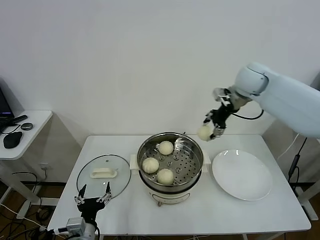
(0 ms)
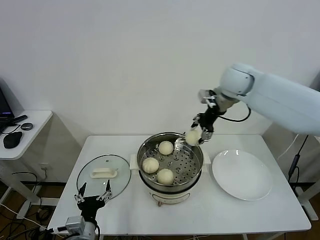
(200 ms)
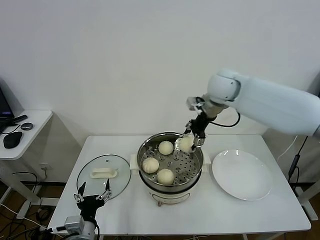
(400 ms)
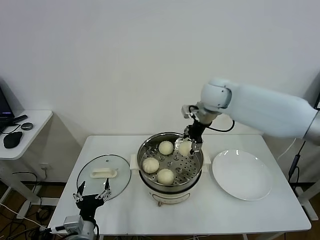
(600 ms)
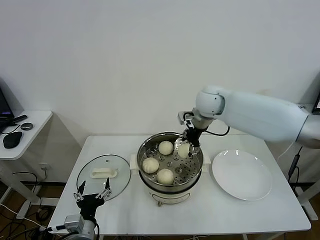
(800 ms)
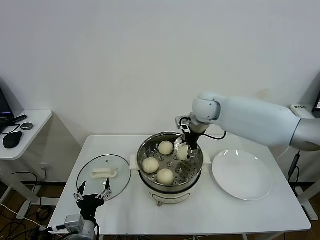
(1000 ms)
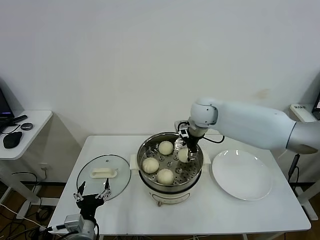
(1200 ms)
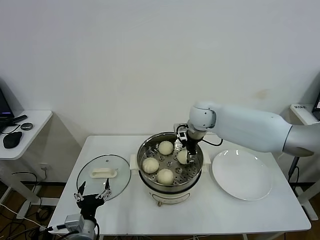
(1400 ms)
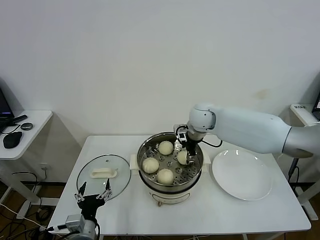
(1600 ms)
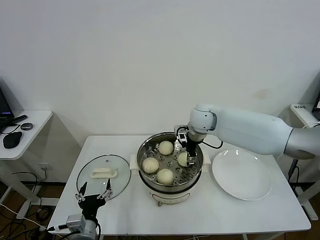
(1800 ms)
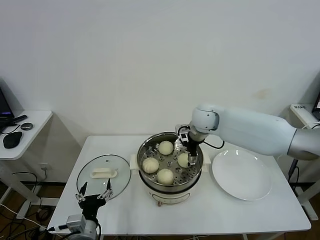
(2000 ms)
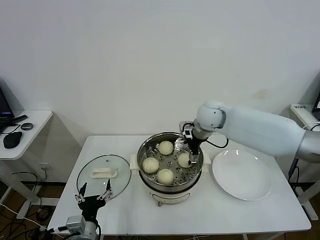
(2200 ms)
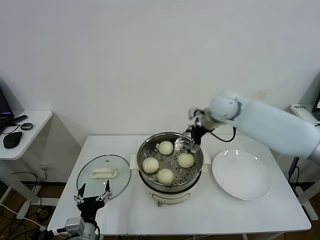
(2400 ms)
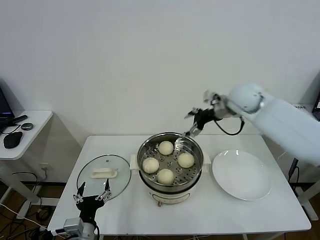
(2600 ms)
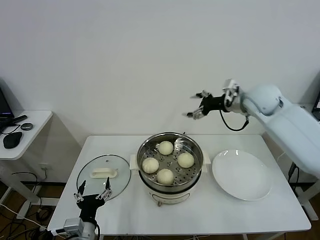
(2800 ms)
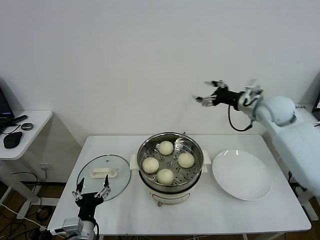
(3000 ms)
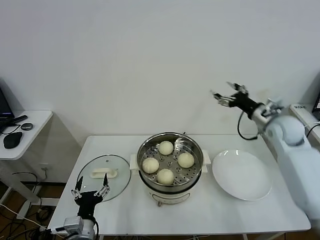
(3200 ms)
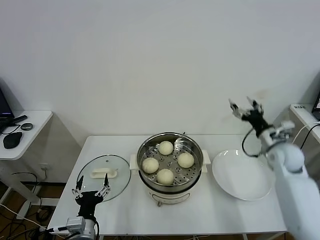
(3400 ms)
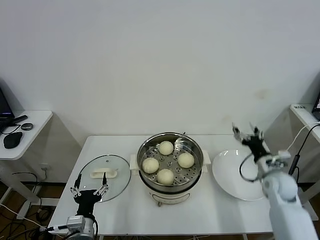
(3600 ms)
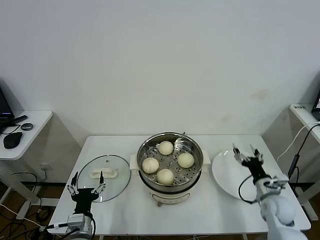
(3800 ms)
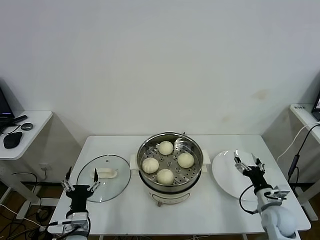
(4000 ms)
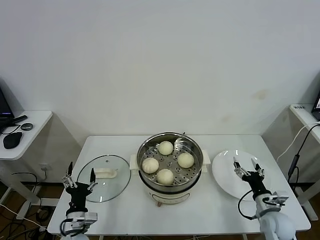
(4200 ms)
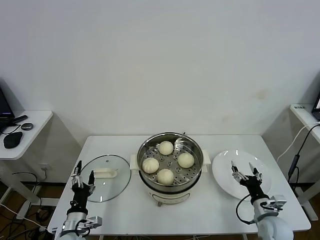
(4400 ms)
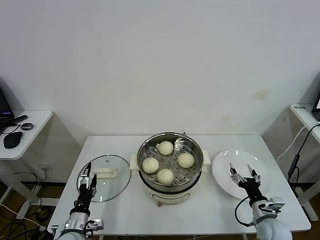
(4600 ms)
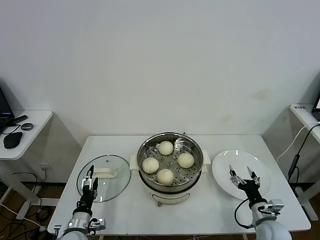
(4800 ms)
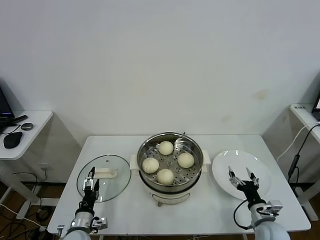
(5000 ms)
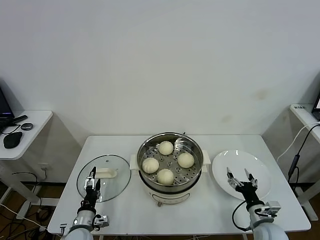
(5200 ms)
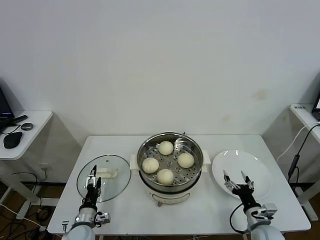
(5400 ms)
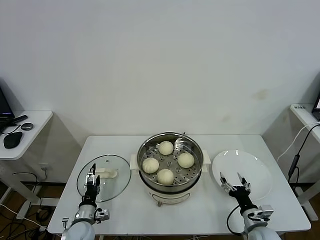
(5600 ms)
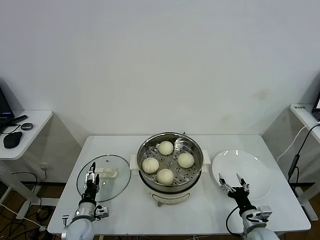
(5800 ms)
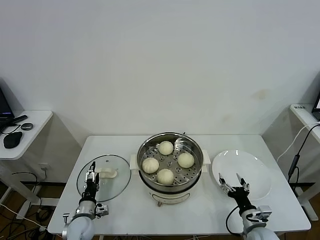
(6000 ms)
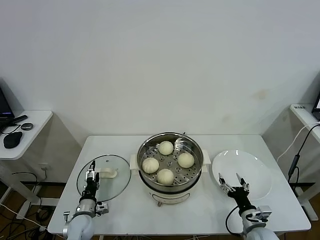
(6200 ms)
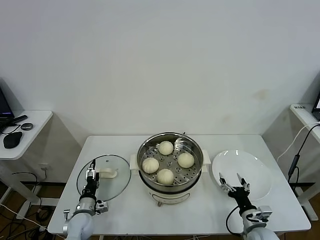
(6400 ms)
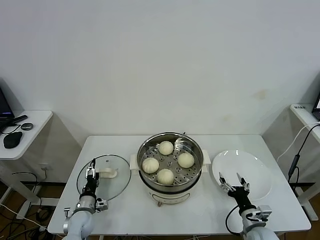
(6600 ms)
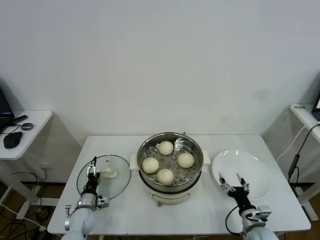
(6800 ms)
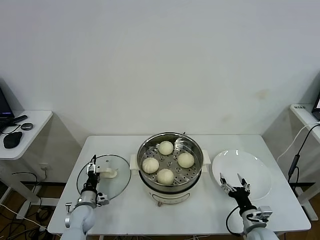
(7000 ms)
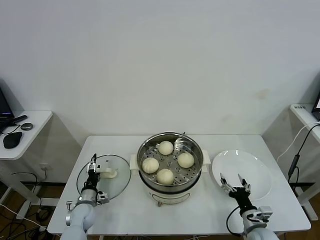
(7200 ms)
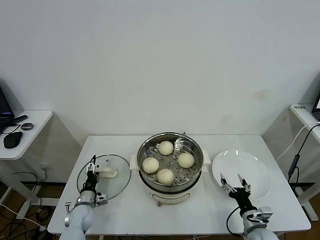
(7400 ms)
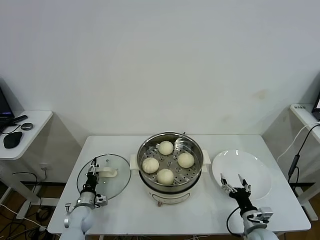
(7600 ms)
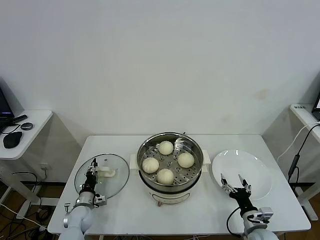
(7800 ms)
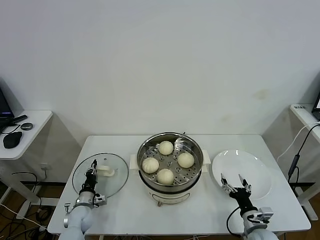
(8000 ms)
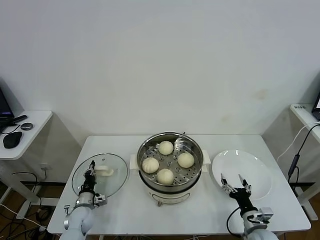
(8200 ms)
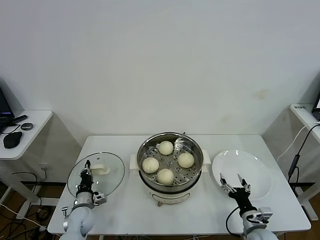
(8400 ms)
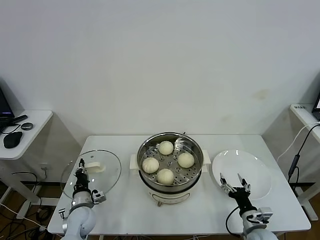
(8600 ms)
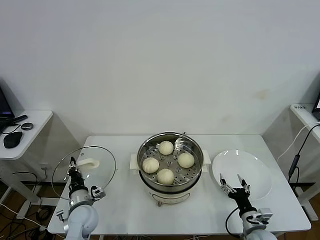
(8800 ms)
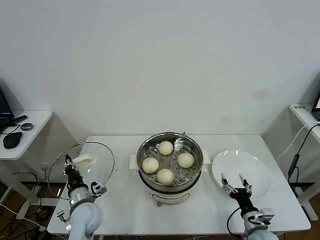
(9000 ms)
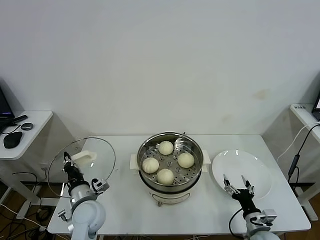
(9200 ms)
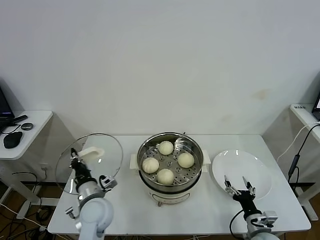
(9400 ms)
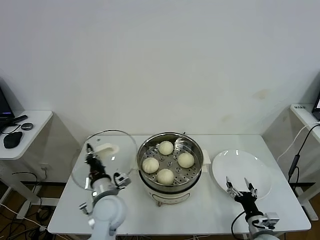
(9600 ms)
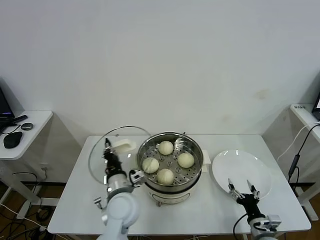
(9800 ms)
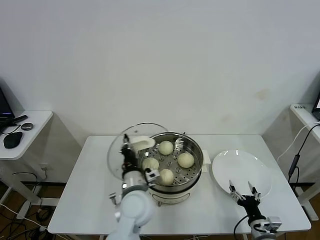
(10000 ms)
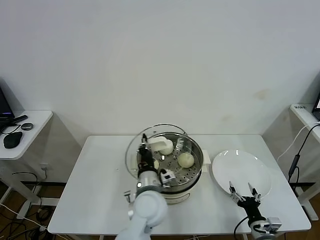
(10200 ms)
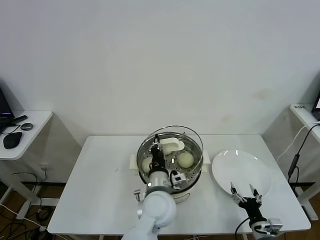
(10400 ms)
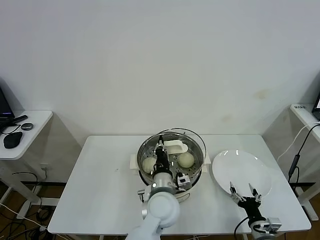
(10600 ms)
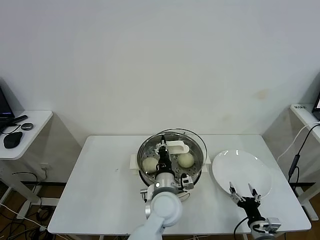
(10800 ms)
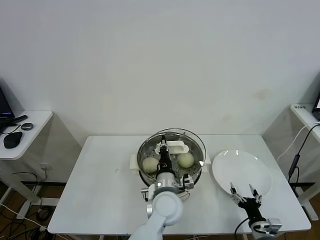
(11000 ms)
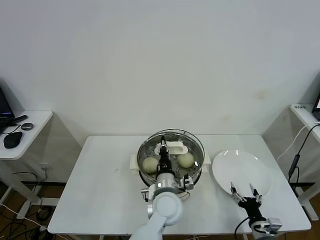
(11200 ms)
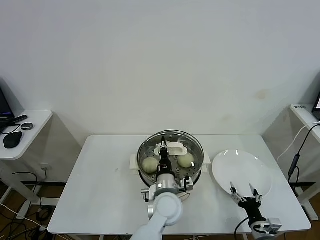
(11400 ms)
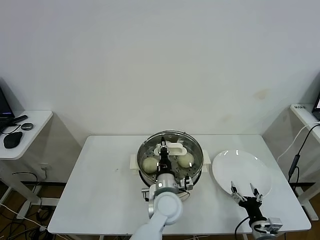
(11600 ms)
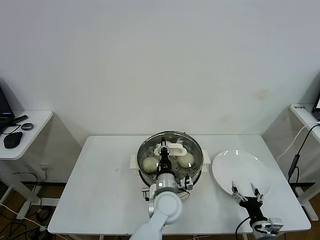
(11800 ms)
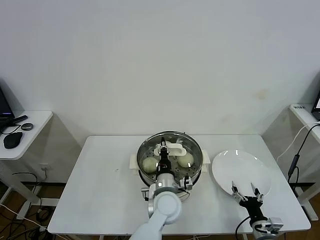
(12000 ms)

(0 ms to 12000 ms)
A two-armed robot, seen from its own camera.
Task of the whole recording: take steamed baozi put them in steamer.
Step, 0 ms - 2200 ms: Place the baozi on the steamer with right gripper.
Step, 2400 ms - 8200 ms: Grasp the pot lid with left gripper.
0 ms - 1600 ms: The right gripper goes roughly 15 cm downward and to the left.
1600 ms - 3000 ms: The right gripper goes some 20 cm to the right, and opens up.
3000 ms - 4400 ms: The left gripper shifts about 10 cm downward and to the left. Meanwhile the right gripper travels downward and backward by some 40 cm.
4400 ms - 6000 ms: The right gripper shifts by approximately 5 cm, while the left gripper moves forward and downward, some 10 cm.
6000 ms - 7600 ms: The left gripper shifts roughly 5 cm forward.
7600 ms - 9000 ms: The left gripper travels upward and to the right by roughly 15 cm, and closes its fingers.
9000 ms - 10400 ms: The left gripper heads to the right and upward, covering about 25 cm.
10400 ms - 12000 ms: The left gripper shifts by roughly 5 cm.

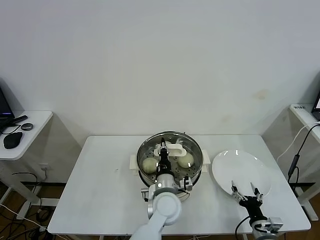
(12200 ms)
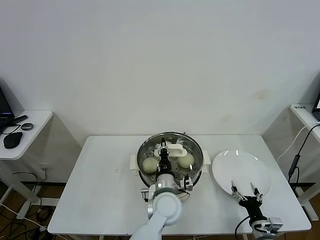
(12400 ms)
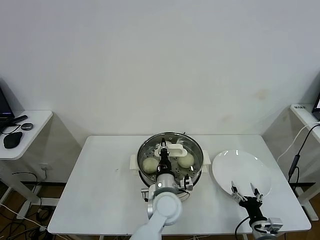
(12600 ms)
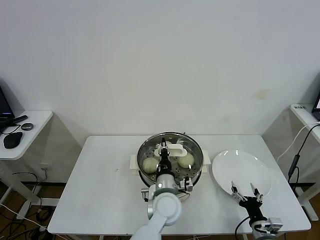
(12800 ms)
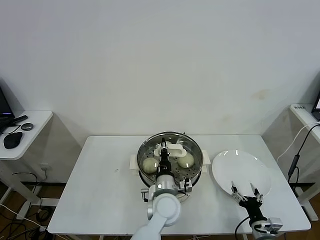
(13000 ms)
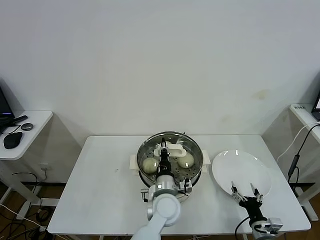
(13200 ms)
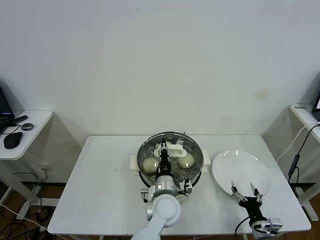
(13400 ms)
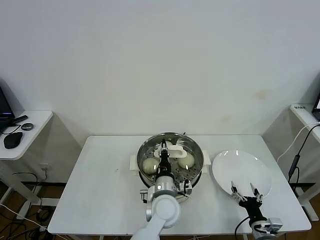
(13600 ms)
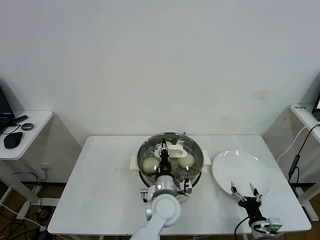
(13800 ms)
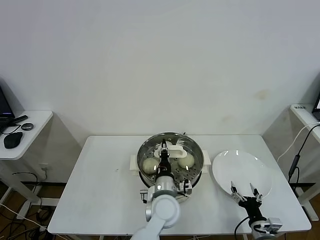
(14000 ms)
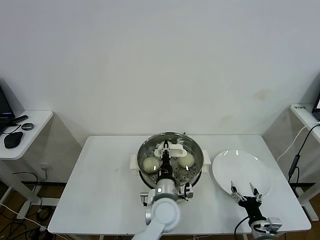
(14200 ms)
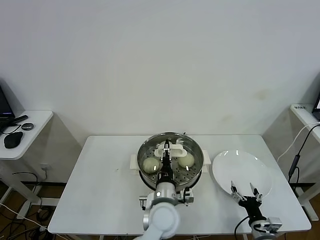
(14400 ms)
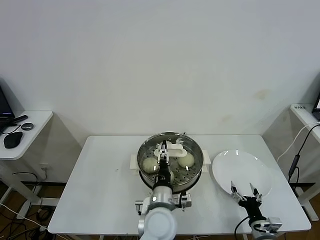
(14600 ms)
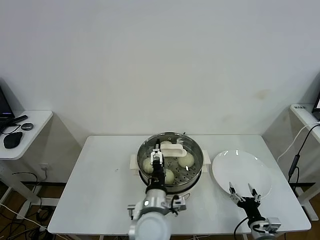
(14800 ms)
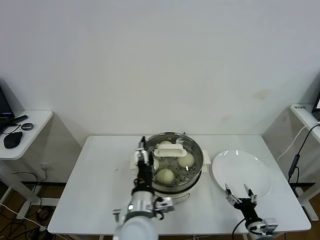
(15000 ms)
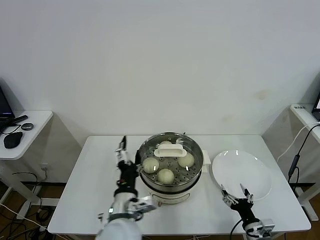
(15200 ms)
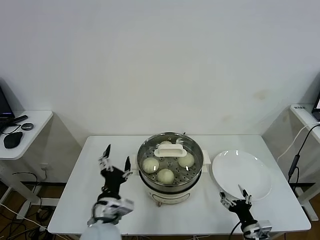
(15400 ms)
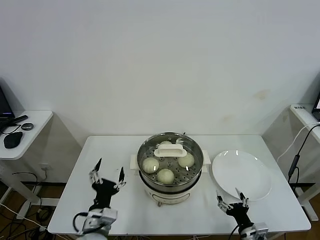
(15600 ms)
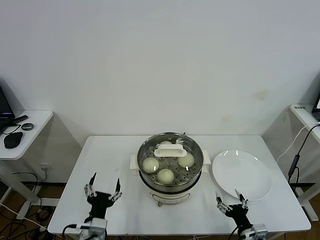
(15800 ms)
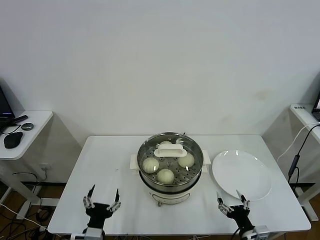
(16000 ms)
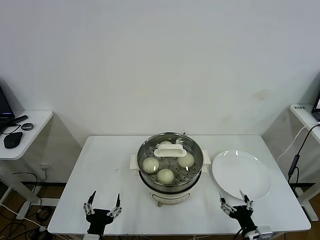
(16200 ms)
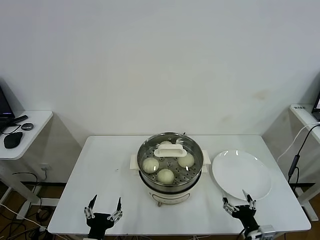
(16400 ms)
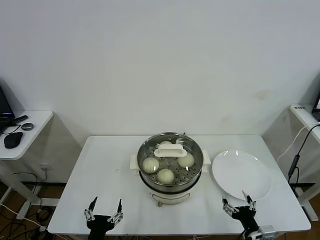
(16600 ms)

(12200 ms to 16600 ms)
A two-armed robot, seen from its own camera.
Task of the whole recording: take steamed baozi put them in steamer.
Step, 12200 ms - 14800 ms: Place the pot lid on the steamer with left gripper.
12200 ms - 13600 ms: Both grippers stay put.
13600 ms - 15200 ms: The left gripper goes some 15 cm to the left, backward and upward, and opens up.
15200 ms - 16600 ms: The right gripper ends up roughly 5 cm from where it was. Meanwhile the left gripper travels to the left, backward and downward by about 20 cm.

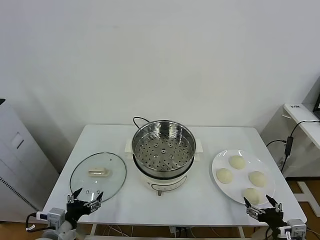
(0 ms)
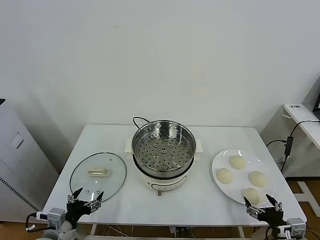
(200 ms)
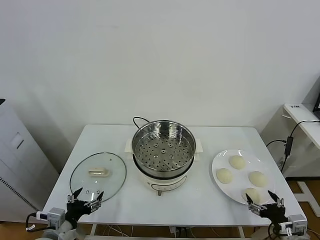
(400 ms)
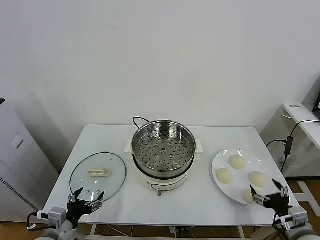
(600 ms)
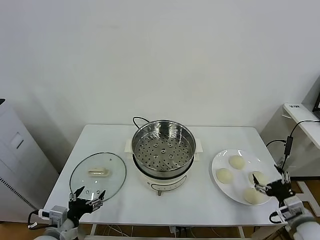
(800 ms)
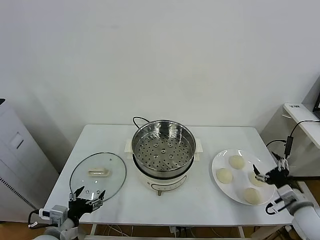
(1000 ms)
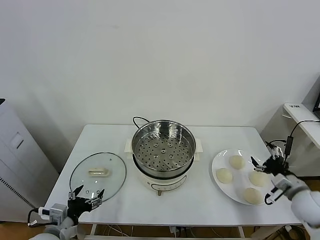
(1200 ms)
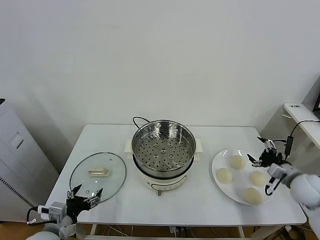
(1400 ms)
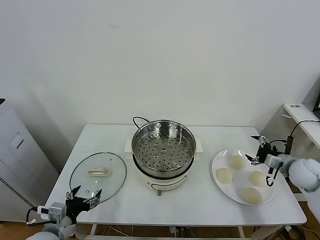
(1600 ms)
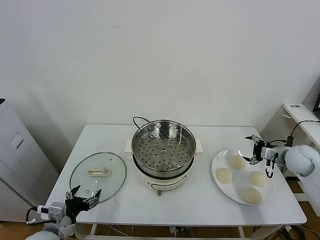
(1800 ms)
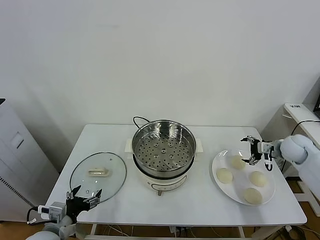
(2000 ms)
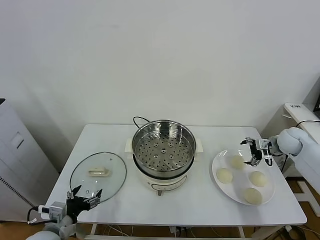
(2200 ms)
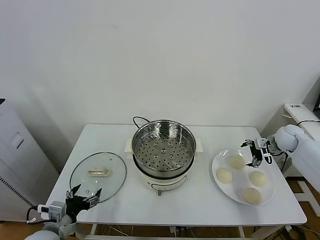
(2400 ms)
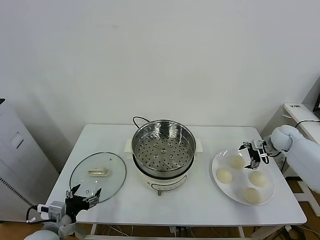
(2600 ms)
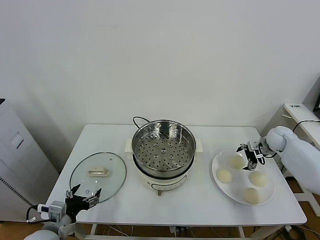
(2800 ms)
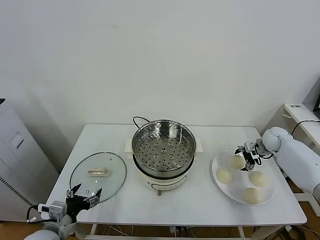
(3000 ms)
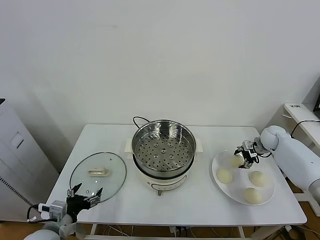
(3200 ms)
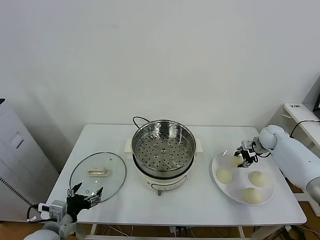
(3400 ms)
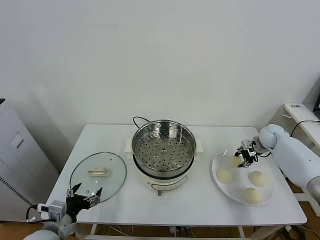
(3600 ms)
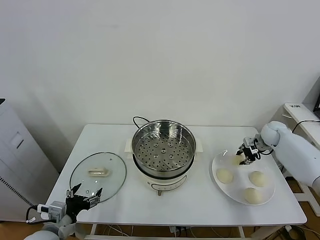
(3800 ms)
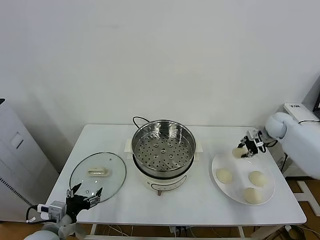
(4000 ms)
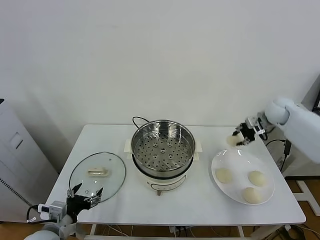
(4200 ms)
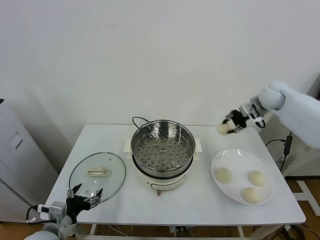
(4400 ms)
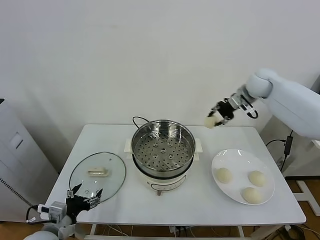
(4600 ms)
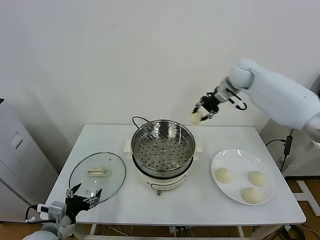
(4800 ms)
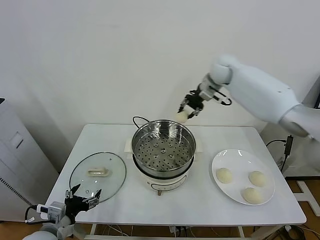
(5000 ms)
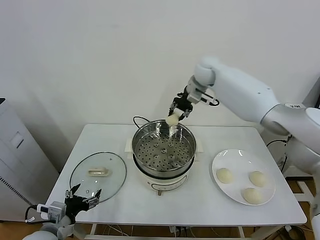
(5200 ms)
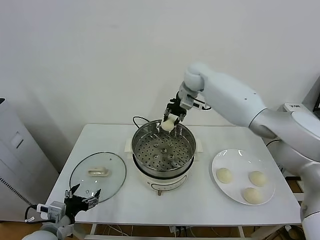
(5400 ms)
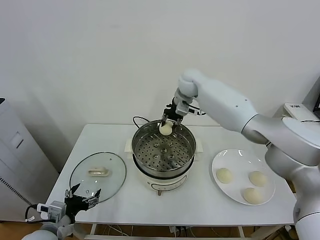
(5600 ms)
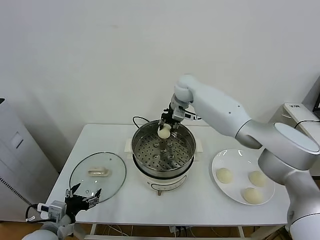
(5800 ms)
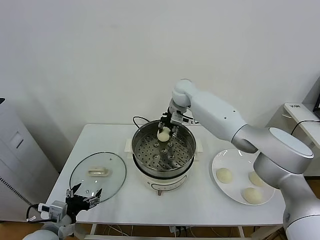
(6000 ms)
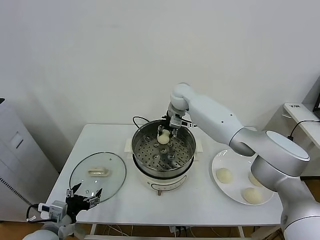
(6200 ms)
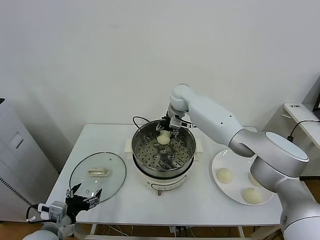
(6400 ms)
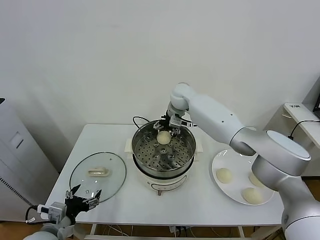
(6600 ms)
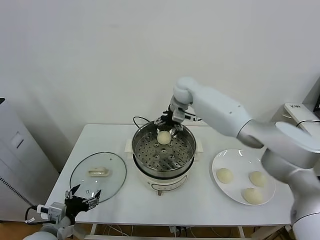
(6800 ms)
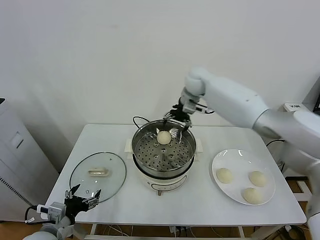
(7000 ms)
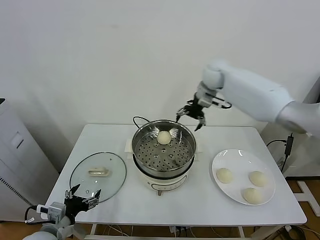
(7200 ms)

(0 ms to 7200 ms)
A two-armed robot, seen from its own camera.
Task of the whole recording: take steamed baozi put them in steamer.
Step, 0 ms - 3200 ms: Grasp the baozi in the plate with right gripper.
Step, 3400 ms - 6600 ms: Place the baozi on the steamer with right gripper.
1400 ms - 2800 ms: The right gripper goes approximately 20 cm forward.
2800 ms - 4400 ms: The right gripper travels upward and to the left by about 20 cm, and closes.
4400 ms - 5800 ms: The right gripper heads to the left, covering about 30 cm.
5800 ms - 7200 ms: The right gripper travels to the right and upward by about 10 cm, and opens up.
